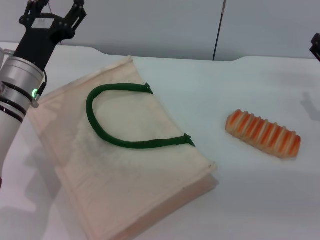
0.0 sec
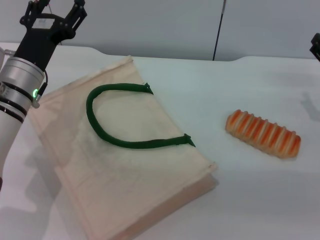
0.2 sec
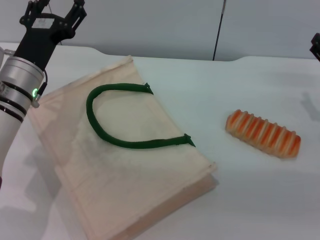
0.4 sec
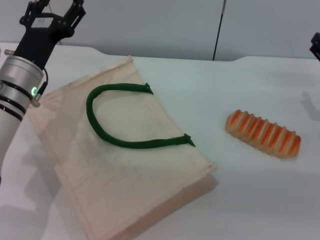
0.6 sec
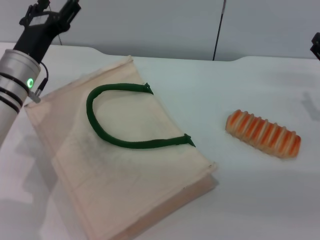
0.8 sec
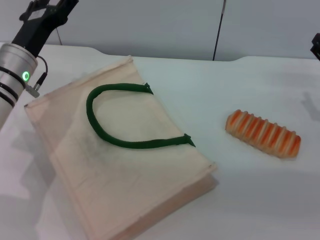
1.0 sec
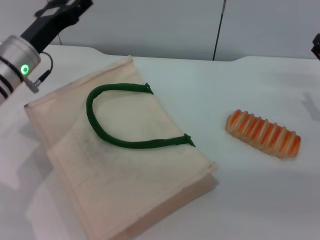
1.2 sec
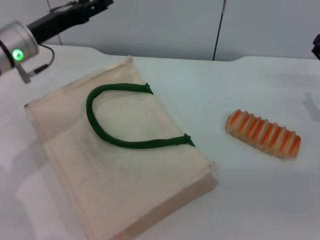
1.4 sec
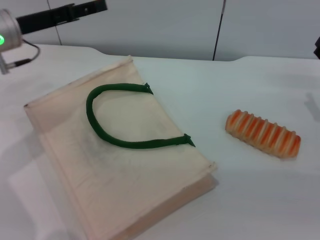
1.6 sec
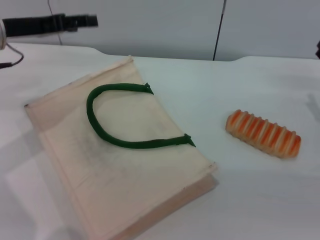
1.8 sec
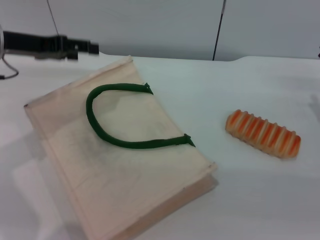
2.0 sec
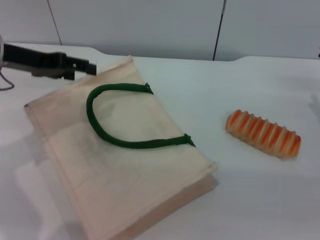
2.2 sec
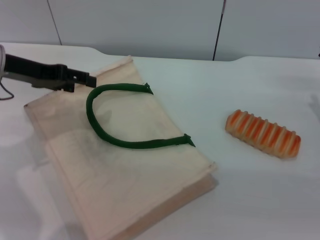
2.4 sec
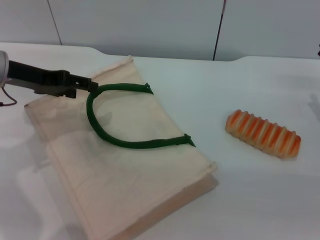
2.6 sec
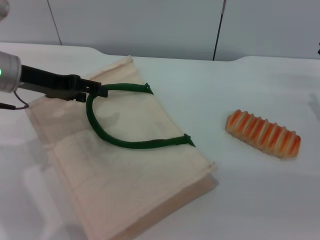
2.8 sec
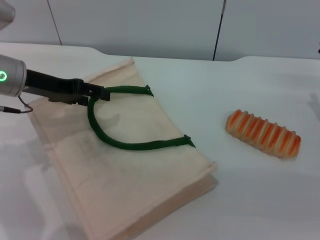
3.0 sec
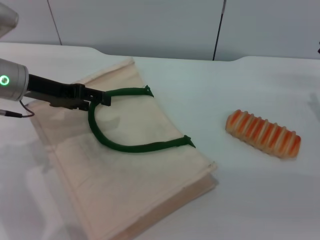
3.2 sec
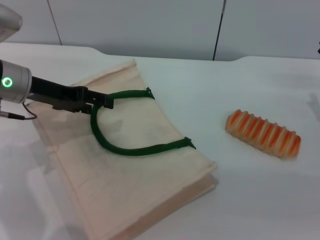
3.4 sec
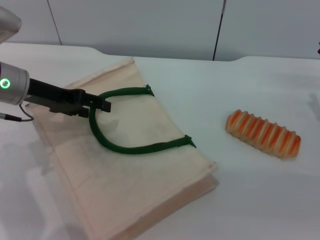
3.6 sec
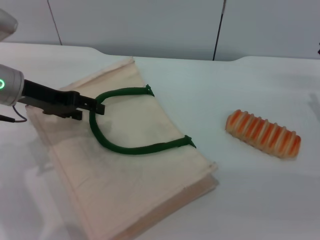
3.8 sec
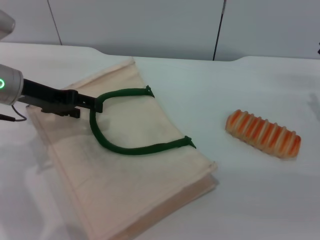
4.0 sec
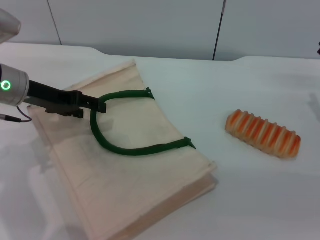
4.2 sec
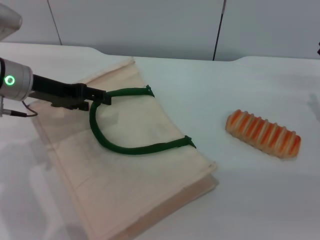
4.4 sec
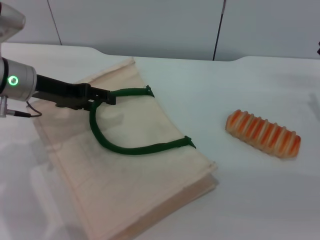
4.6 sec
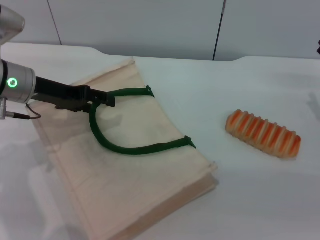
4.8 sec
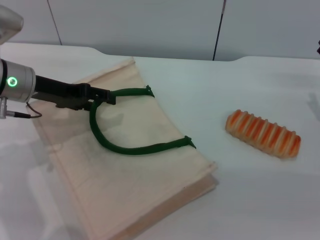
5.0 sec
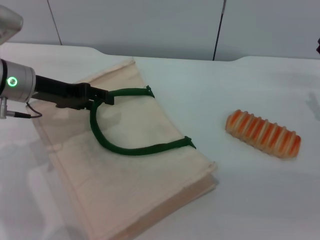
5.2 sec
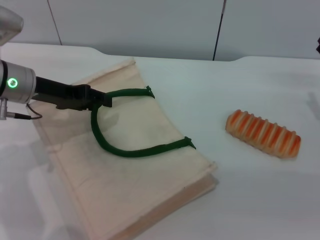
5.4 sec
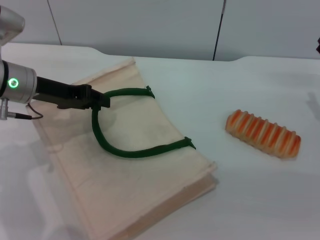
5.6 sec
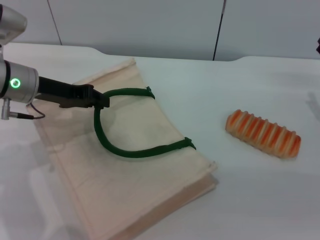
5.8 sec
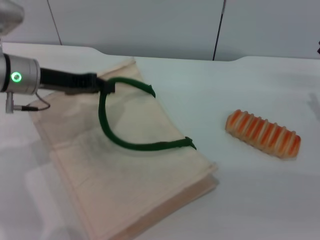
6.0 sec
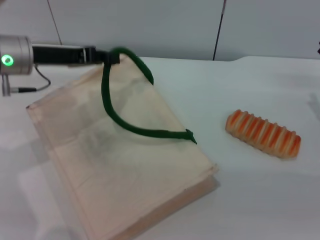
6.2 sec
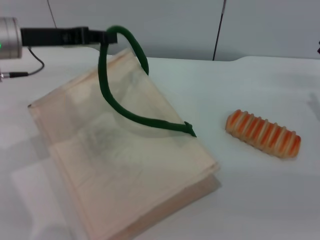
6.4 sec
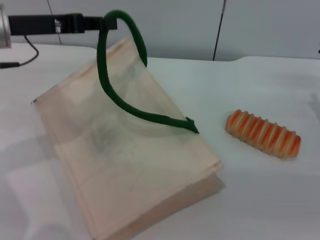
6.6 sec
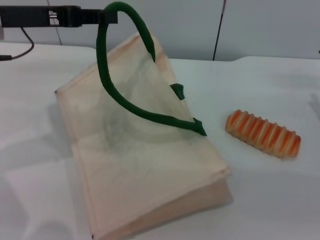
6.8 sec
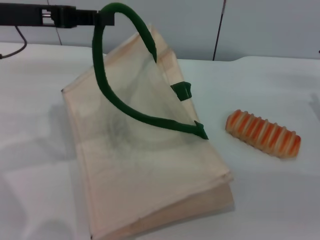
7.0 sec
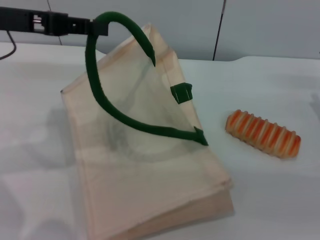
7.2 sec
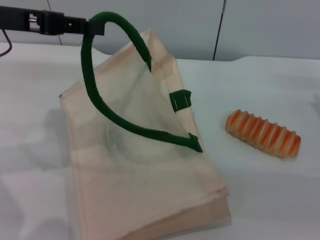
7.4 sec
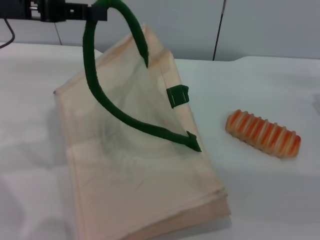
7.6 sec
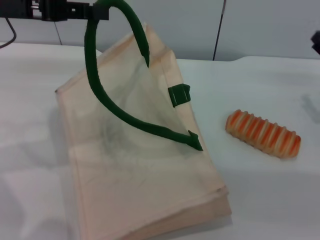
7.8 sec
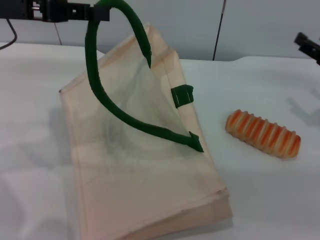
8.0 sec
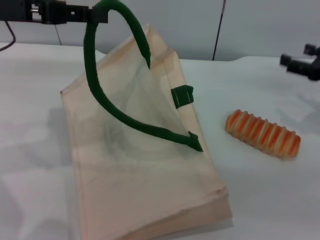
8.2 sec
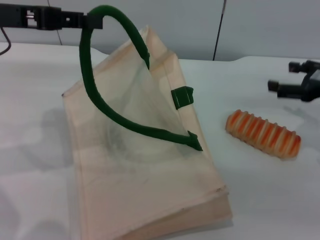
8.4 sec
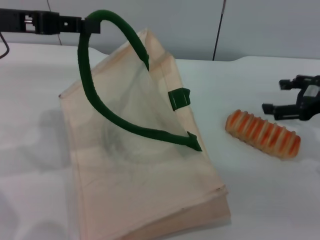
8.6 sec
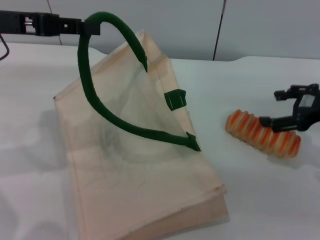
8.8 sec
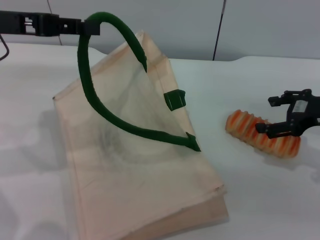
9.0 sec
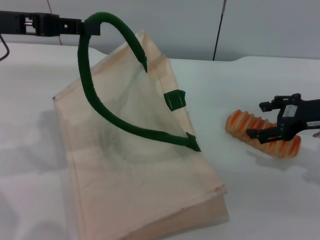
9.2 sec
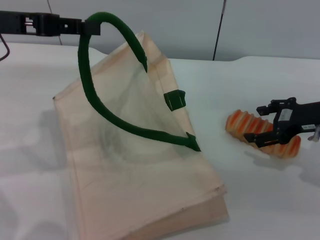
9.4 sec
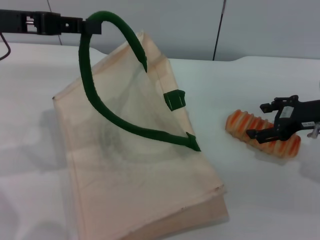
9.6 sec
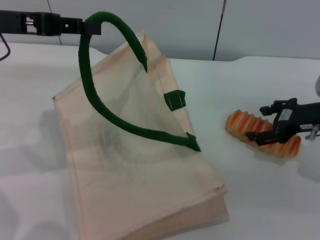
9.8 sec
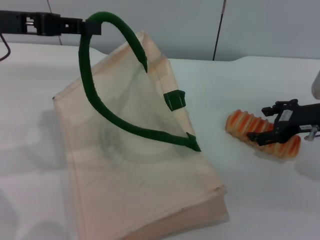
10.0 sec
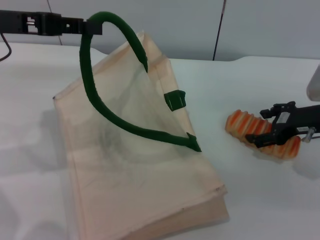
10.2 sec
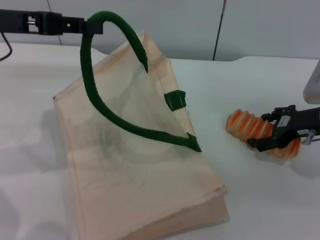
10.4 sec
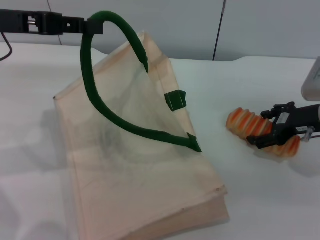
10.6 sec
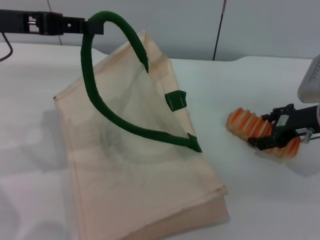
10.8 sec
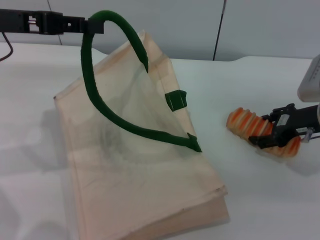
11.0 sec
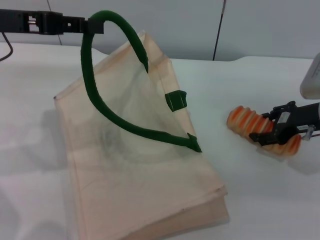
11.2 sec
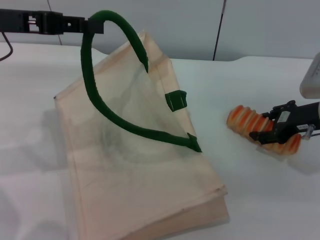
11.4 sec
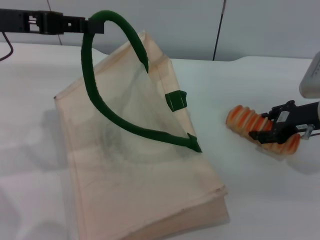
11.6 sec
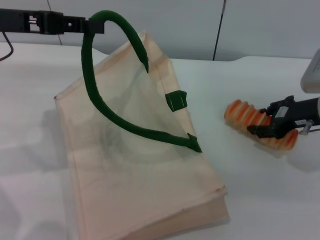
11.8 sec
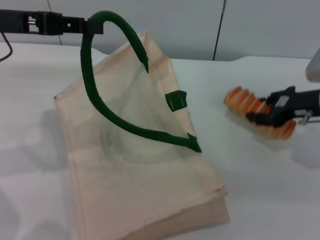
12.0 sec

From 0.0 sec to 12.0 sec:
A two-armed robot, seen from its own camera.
Task of the whole recording: pick up the bread from the table and place it in the white handbag.
Step, from 0.0 sec to 7.8 sec: Lift the woven bag with the left gripper to open it.
Step, from 8.0 sec to 12.0 sec: Pick up the bread with the right gripper.
From 0.0 sec to 1.6 sec: The left gripper travels upward, to the left and forward by approximately 10 cm.
From 3.0 sec to 4.4 sec: The grippers move only a little.
From 4.4 sec to 6.0 sec: The left gripper closes its fingers.
From 6.0 sec to 7.6 sec: The left gripper is displaced upward by roughly 10 cm.
From 7.6 sec to 9.0 sec: The right gripper is displaced upward by roughly 5 cm.
From 9.0 sec to 10.4 sec: The grippers move only a little.
From 10.4 sec to 12.0 sec: The right gripper closes its fingers.

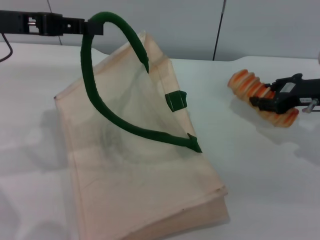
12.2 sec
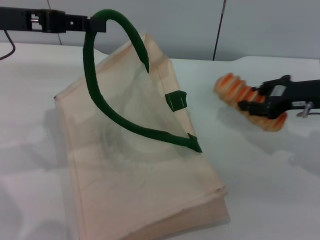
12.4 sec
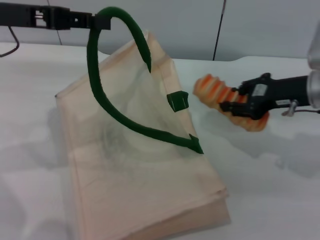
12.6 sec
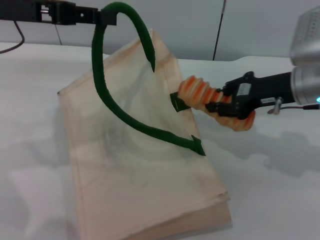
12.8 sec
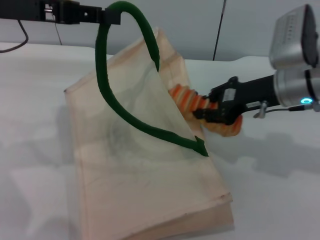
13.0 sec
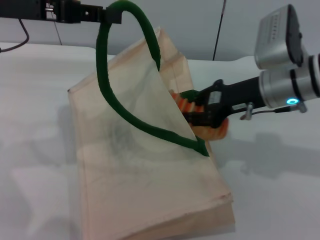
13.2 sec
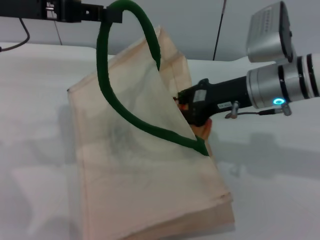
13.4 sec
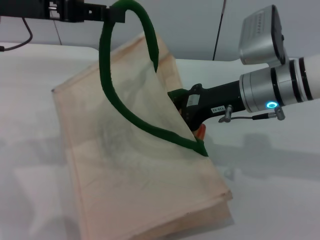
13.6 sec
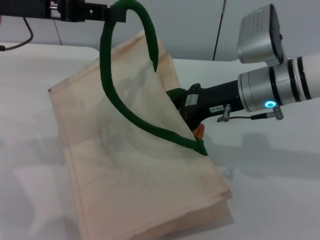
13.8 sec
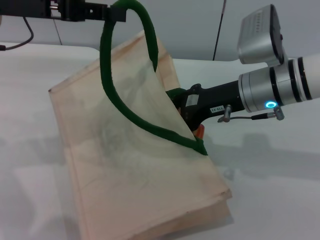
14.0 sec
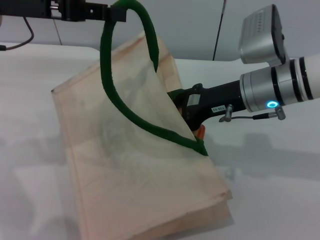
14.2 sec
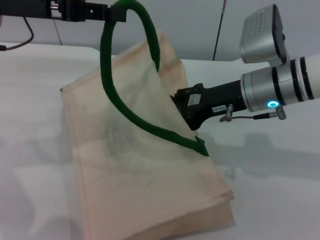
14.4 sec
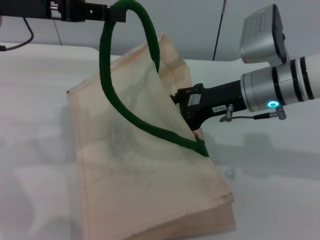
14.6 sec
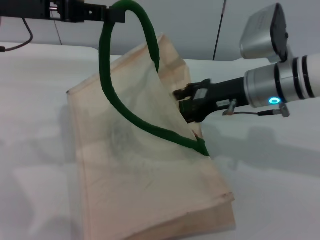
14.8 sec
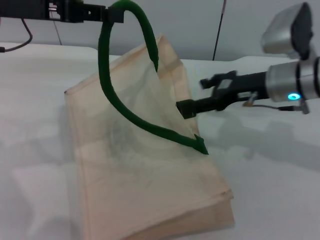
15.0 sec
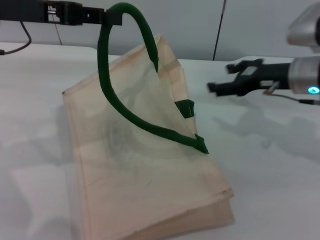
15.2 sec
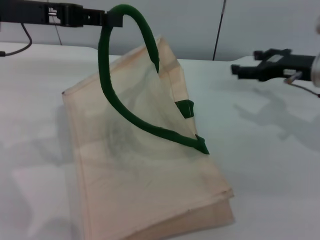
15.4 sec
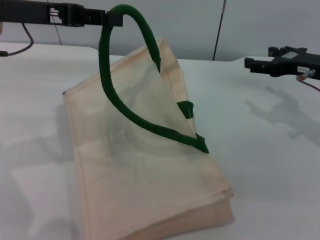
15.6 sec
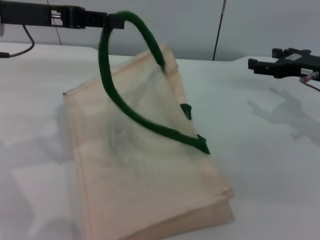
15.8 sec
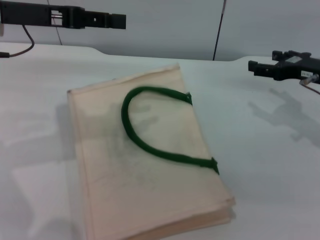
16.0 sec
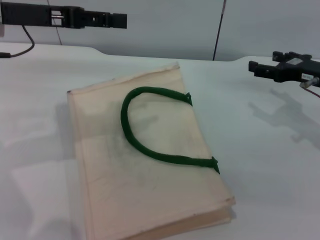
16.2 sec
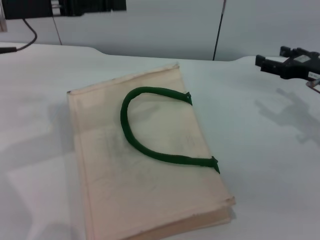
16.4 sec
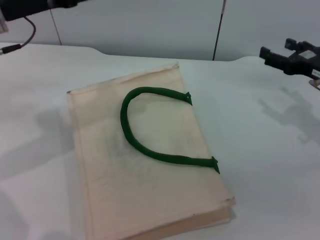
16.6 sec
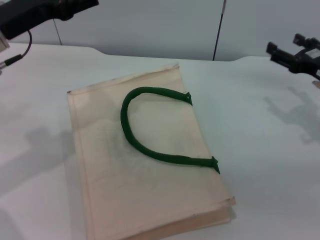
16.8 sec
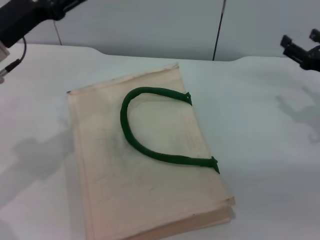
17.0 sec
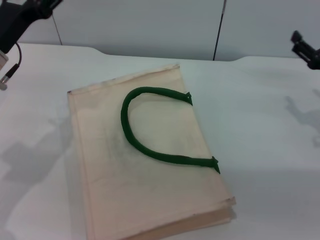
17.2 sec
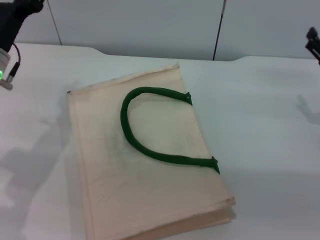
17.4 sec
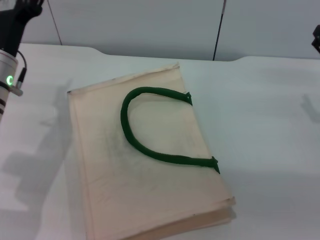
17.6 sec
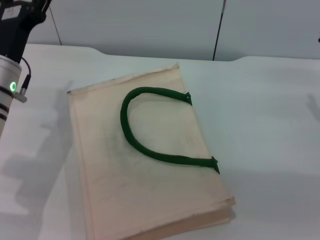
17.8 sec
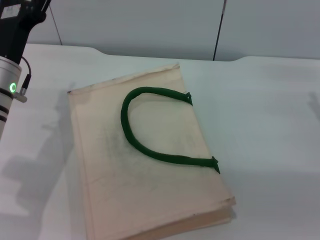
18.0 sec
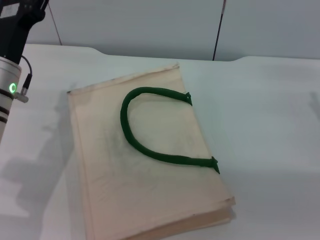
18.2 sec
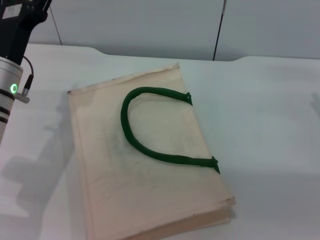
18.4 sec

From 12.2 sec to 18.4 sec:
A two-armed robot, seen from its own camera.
Task of the whole recording: pick up the bread from the table and place it in the white handbag.
Step, from 12.2 sec to 14.8 sec: Place the bread into the woven bag with the right gripper.
From 12.2 sec to 13.8 sec: The right gripper heads to the left, covering some 15 cm.
From 13.8 sec to 15.4 sec: The right gripper is displaced to the right by about 10 cm, and opens.
From 15.4 sec to 16.8 sec: The left gripper travels downward by some 5 cm, and opens. Meanwhile the right gripper ends up about 5 cm from where it was.
From 16.8 sec to 18.4 sec: The left gripper is displaced downward by approximately 10 cm.

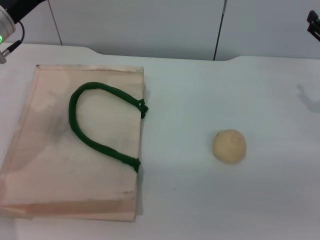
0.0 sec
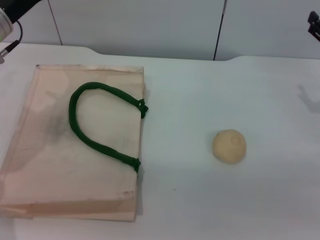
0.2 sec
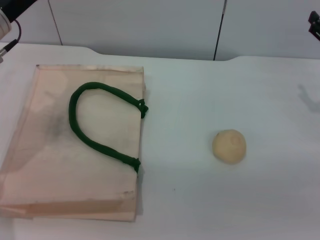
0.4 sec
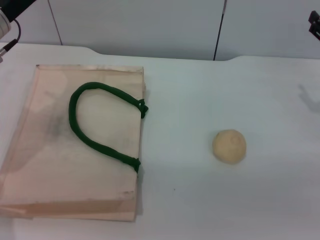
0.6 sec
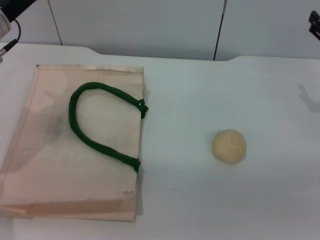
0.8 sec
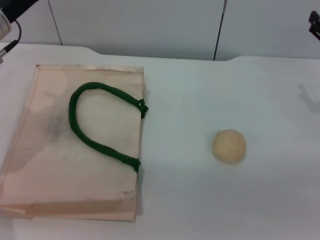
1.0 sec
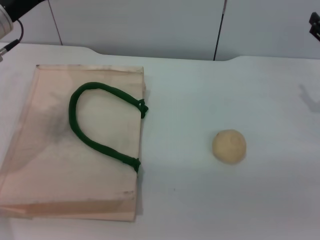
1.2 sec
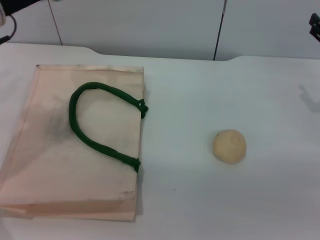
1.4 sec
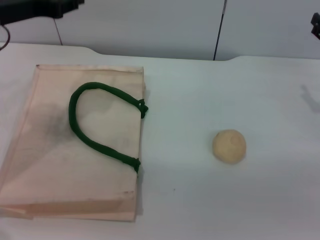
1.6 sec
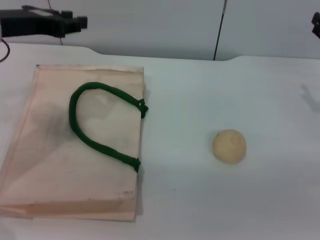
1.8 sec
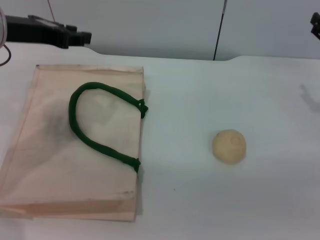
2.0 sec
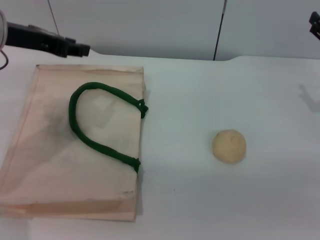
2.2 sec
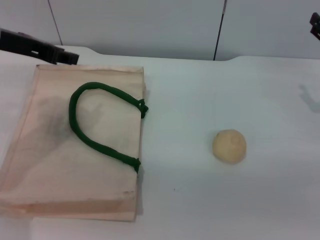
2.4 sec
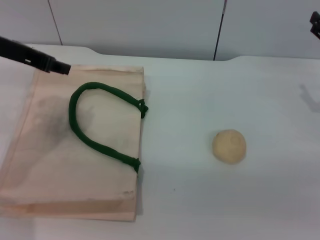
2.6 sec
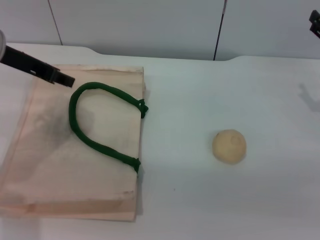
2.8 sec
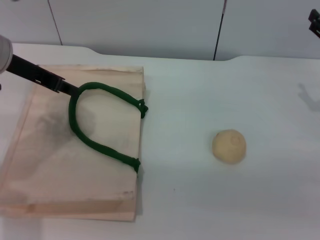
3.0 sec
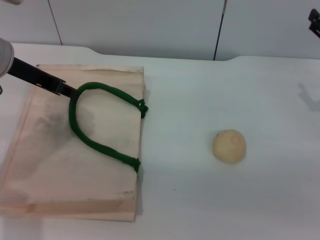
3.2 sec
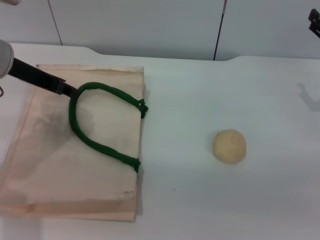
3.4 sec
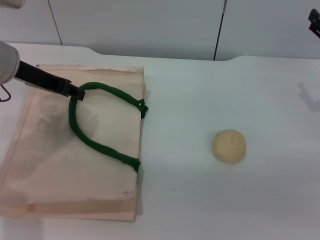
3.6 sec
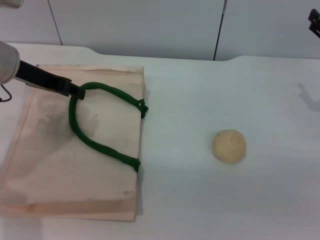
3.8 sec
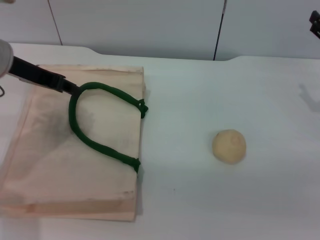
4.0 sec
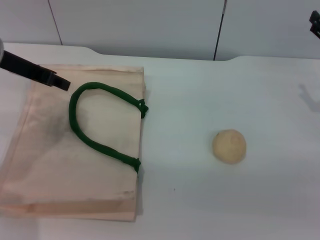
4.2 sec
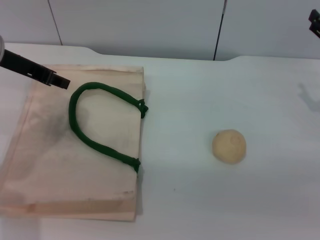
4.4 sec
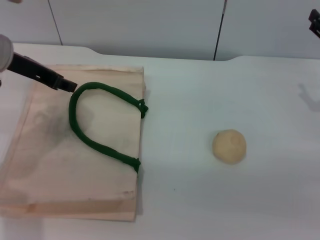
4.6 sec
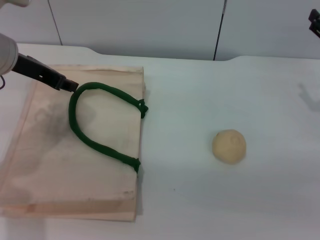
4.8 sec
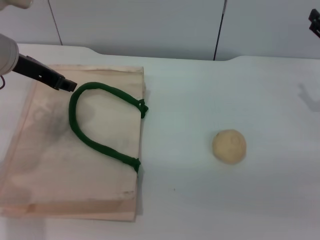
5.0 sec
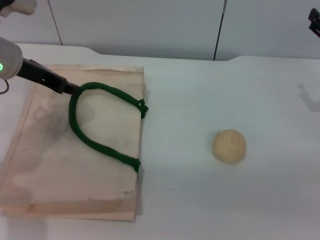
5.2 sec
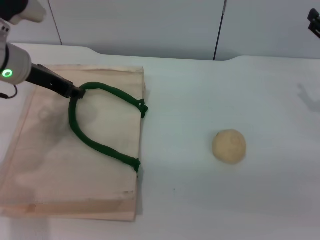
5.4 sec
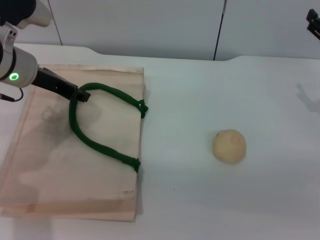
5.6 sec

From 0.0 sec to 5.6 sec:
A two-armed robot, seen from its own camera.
Task of the whole recording: pick up the egg yolk pastry from the table and place it in the white handbag.
From 0.0 sec to 1.4 sec: There are only small adjustments of the grippers.
From 2.8 sec to 4.2 sec: The grippers stay close to where they were, moving slightly.
From 4.2 sec to 5.6 sec: The left gripper heads downward, covering about 5 cm.
